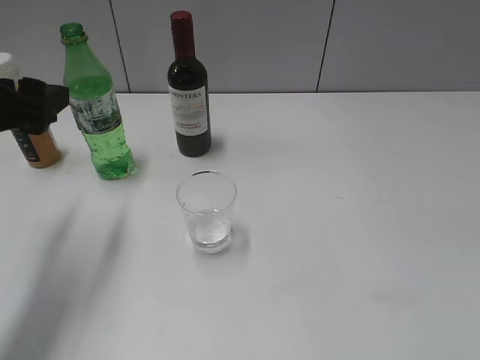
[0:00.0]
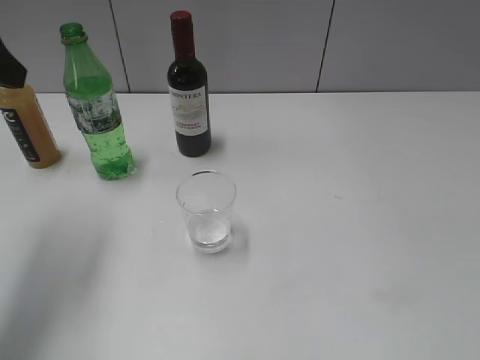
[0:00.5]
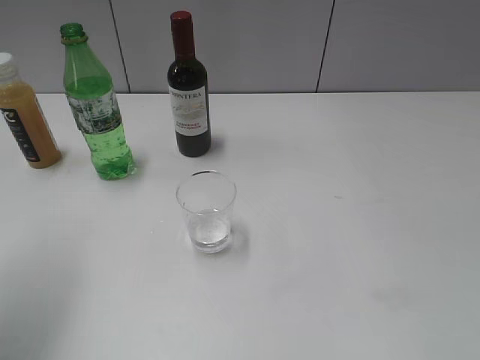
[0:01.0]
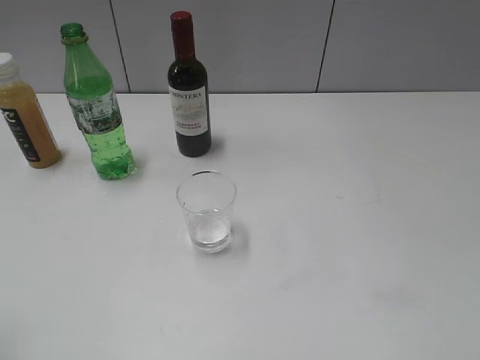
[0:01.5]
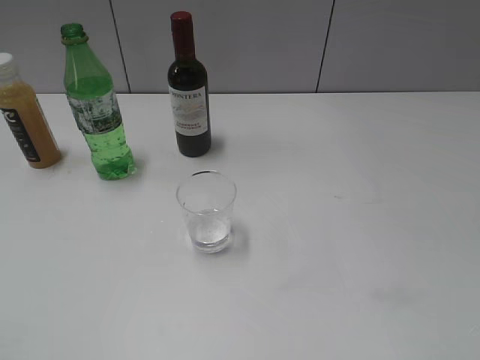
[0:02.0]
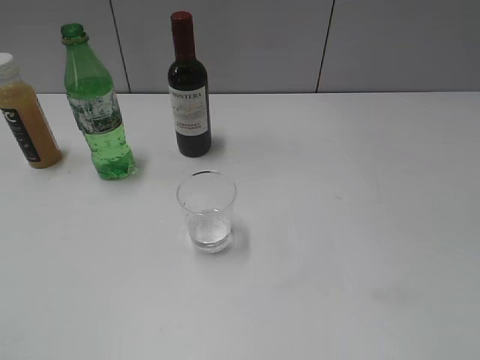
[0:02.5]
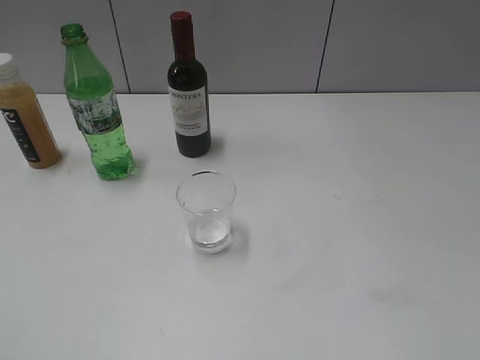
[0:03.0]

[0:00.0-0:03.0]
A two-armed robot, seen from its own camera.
0:00.0 to 0:01.5: The left gripper moves backward, upward and to the left, about 20 cm.
